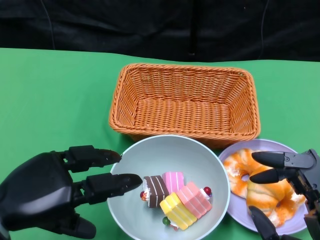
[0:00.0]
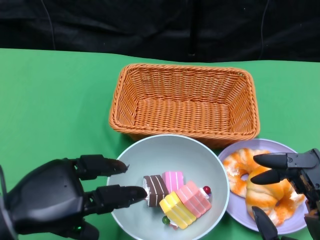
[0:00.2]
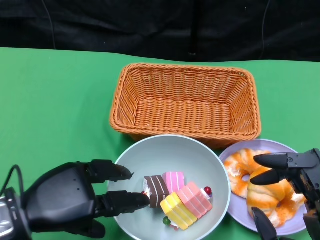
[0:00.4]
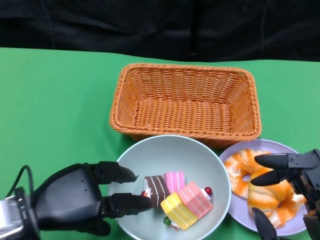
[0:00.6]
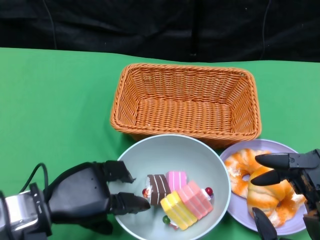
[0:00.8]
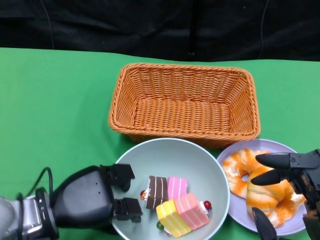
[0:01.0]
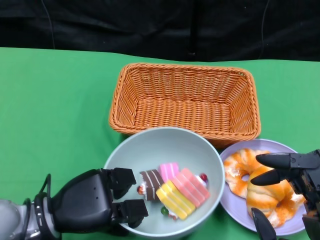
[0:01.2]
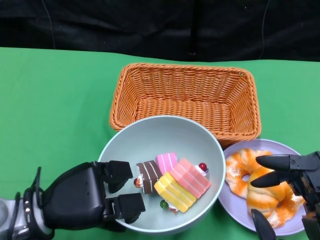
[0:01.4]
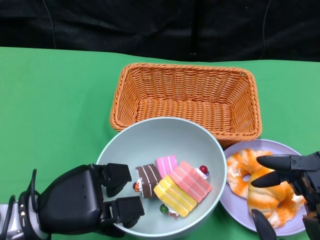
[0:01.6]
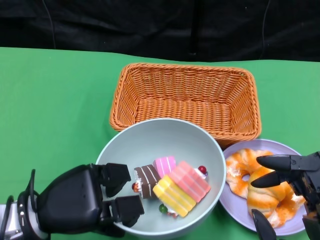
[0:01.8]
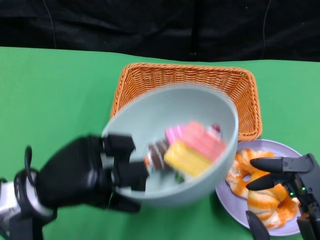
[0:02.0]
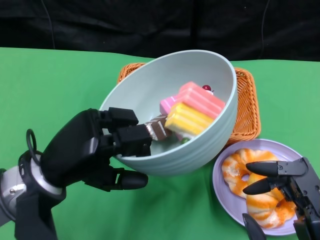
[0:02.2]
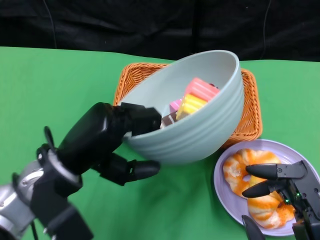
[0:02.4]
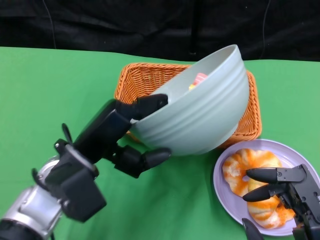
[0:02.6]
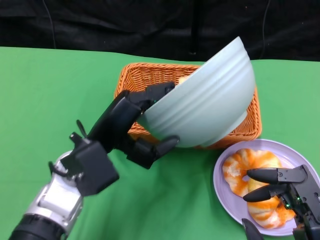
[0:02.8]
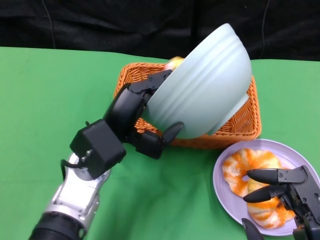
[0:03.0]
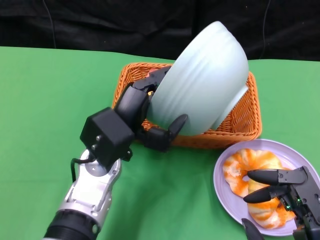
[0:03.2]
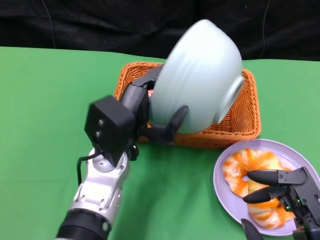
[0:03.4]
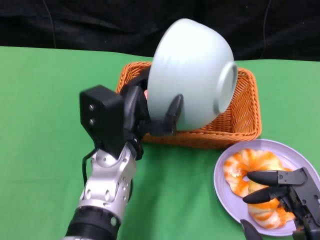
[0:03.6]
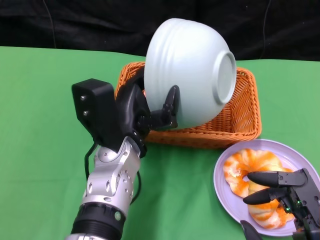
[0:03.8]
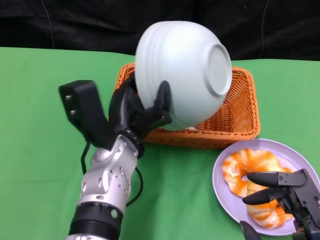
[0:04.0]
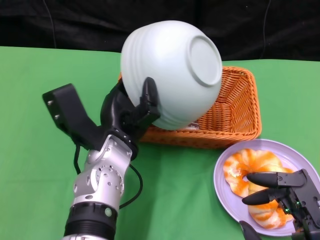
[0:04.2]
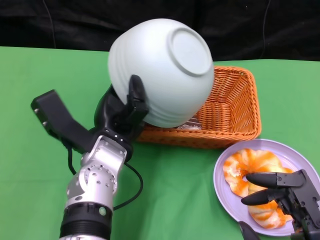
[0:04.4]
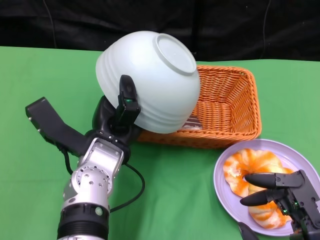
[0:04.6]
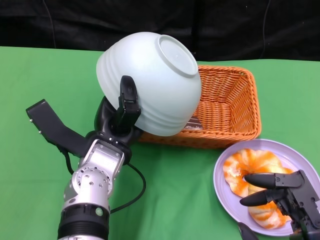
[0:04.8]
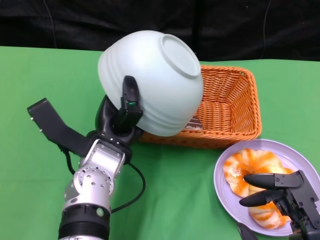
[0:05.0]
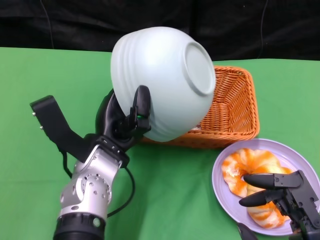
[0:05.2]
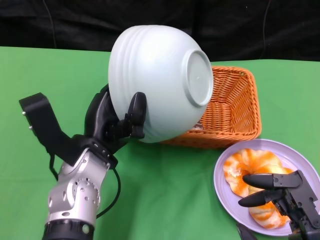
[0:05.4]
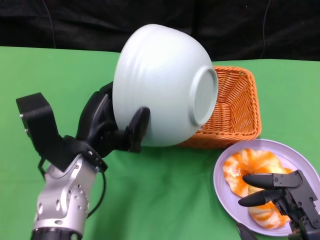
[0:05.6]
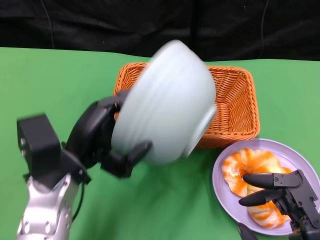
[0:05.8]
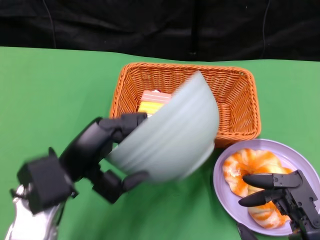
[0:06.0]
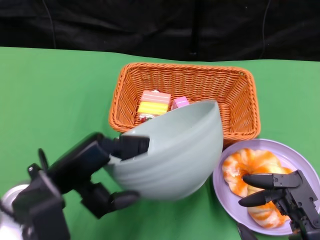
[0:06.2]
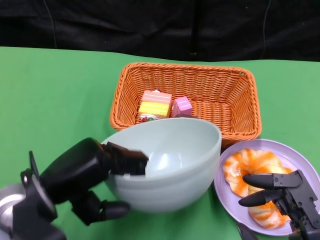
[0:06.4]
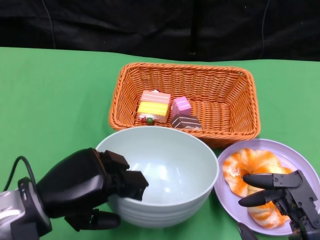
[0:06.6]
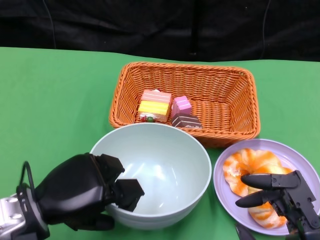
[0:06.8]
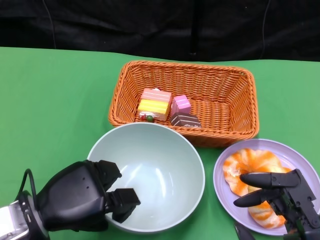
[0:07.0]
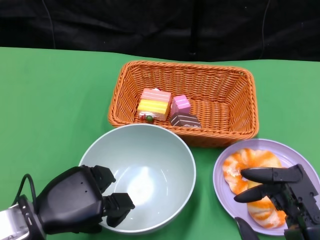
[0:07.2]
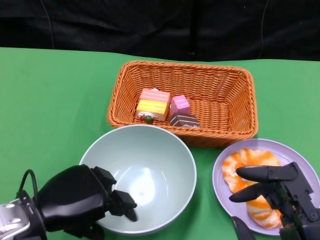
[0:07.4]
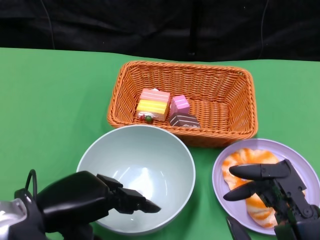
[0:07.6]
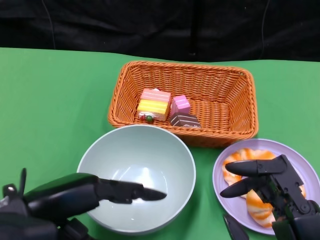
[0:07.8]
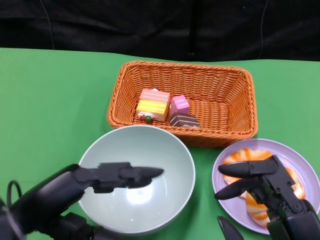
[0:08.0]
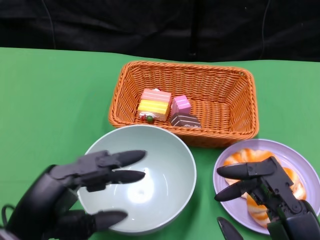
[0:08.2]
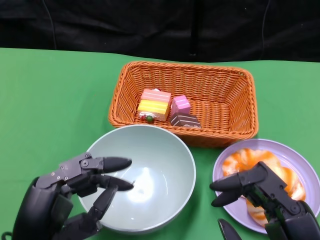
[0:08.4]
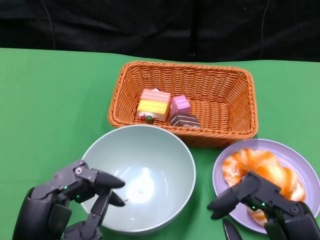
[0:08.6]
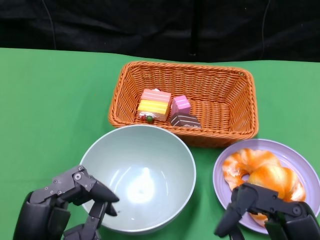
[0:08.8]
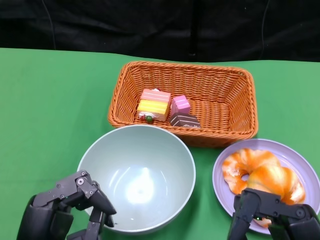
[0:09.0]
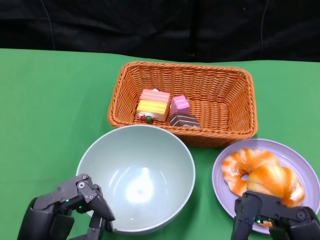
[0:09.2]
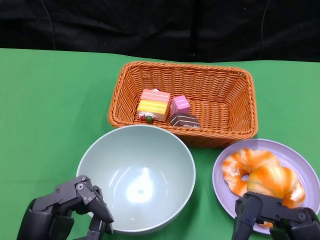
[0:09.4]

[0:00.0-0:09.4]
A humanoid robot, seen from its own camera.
Step, 0:01.2 to 0:05.2: Pour the cake into the basket with the left gripper.
Step, 0:05.4 to 0:07.6: Place the bowl on the table with the left gripper.
0:00.0 to 0:01.6: The left hand goes roughly 5 cm downward.
0:01.6 to 0:03.2: The left hand is displaced to the right, forward and upward by approximately 15 cm.
0:04.8 to 0:06.2: The left hand goes roughly 10 cm to the left and backward.
0:06.2 to 0:07.8: The left hand moves some 5 cm.
0:07.8 to 0:09.4: The left hand travels downward and backward by approximately 10 cm.

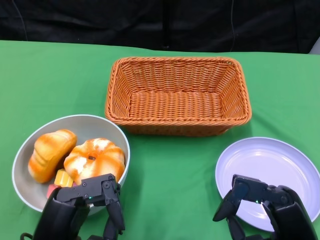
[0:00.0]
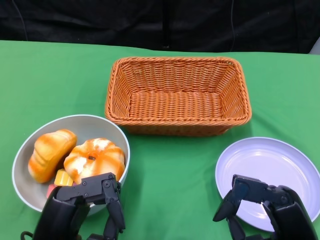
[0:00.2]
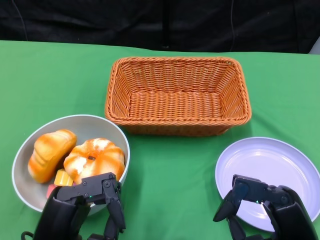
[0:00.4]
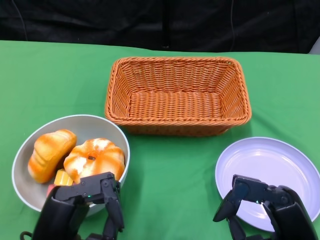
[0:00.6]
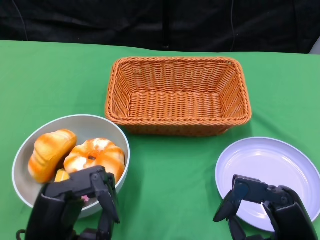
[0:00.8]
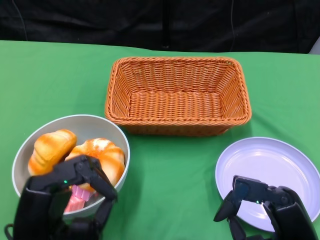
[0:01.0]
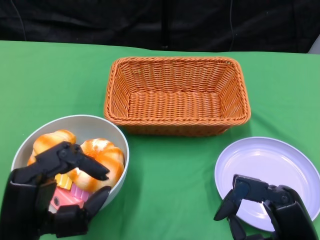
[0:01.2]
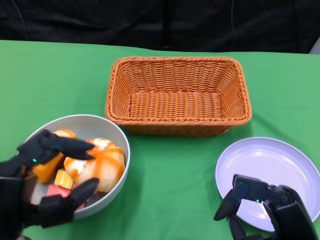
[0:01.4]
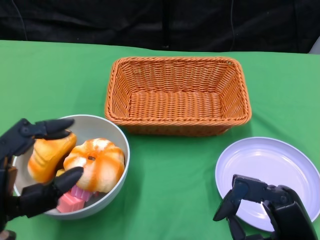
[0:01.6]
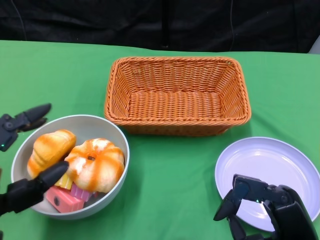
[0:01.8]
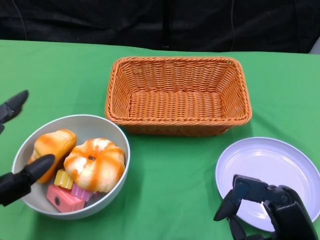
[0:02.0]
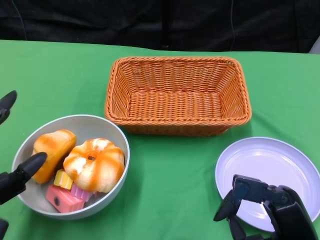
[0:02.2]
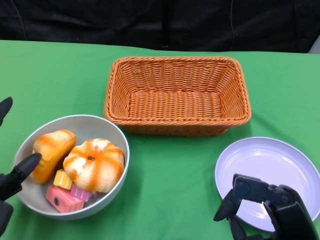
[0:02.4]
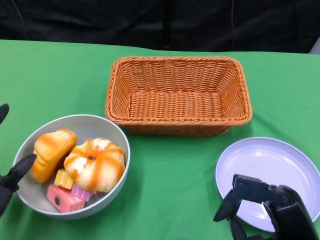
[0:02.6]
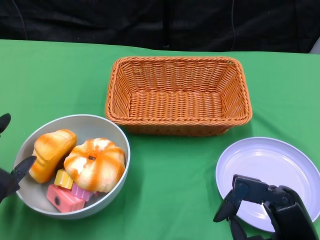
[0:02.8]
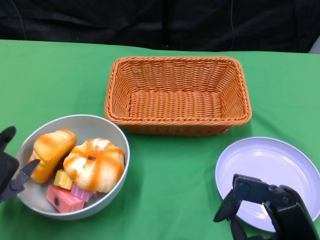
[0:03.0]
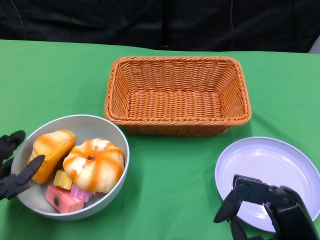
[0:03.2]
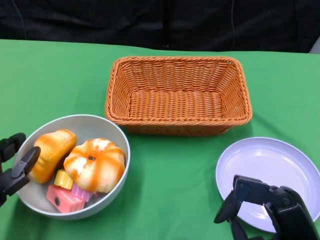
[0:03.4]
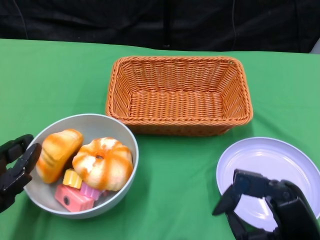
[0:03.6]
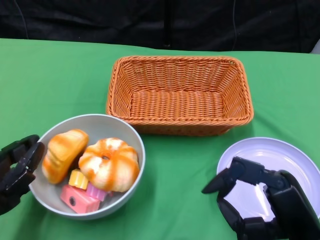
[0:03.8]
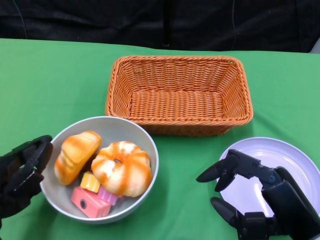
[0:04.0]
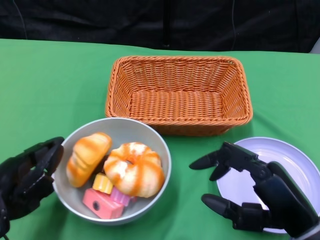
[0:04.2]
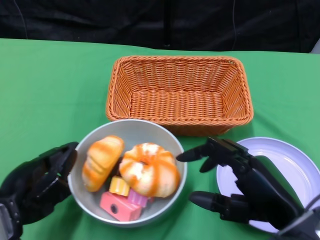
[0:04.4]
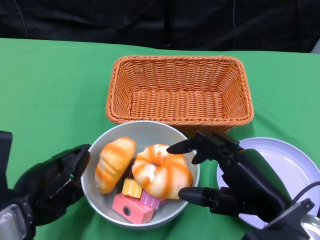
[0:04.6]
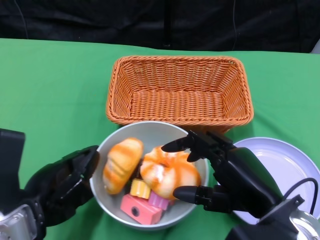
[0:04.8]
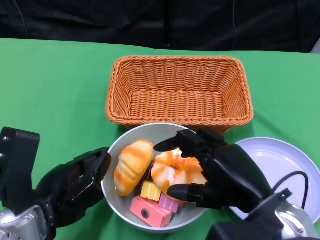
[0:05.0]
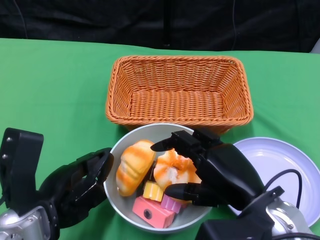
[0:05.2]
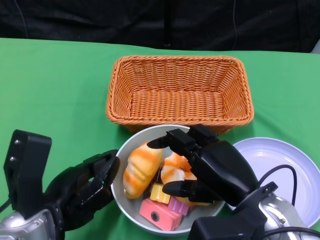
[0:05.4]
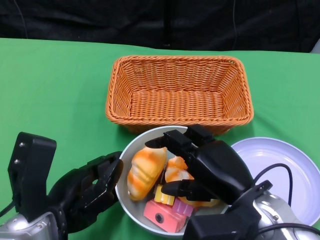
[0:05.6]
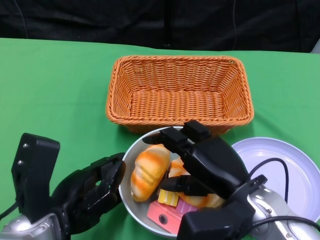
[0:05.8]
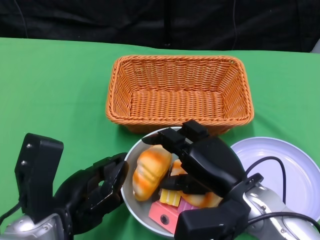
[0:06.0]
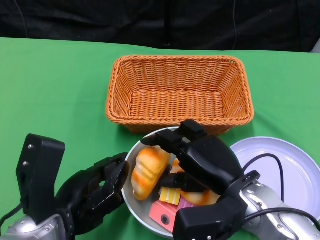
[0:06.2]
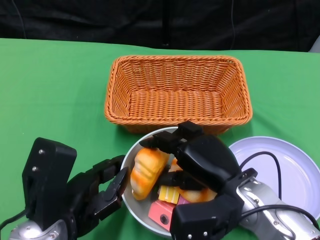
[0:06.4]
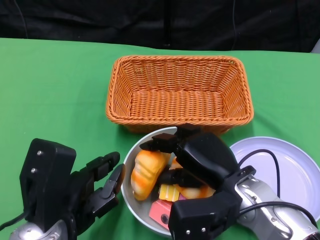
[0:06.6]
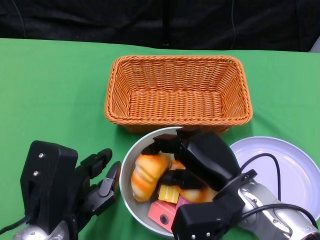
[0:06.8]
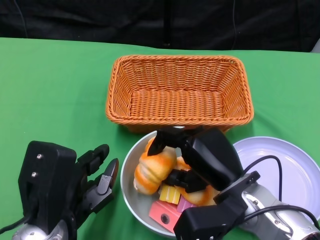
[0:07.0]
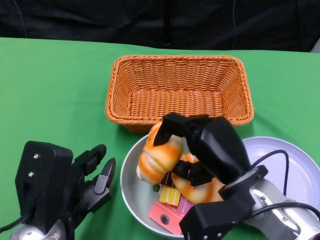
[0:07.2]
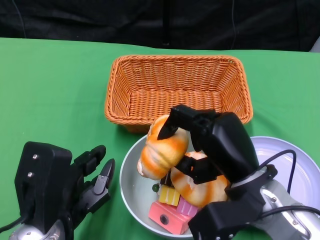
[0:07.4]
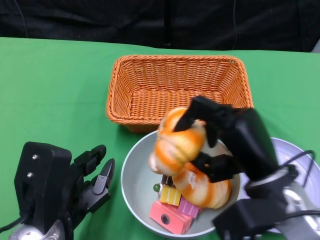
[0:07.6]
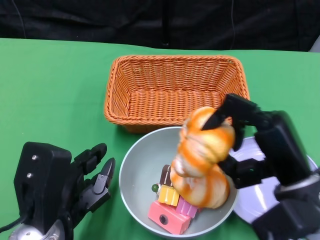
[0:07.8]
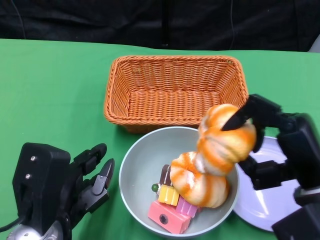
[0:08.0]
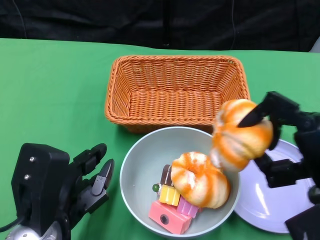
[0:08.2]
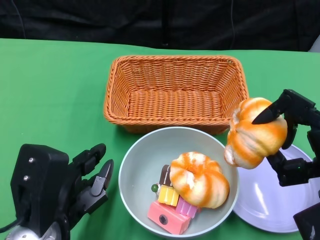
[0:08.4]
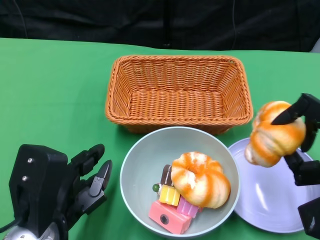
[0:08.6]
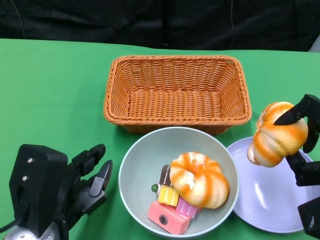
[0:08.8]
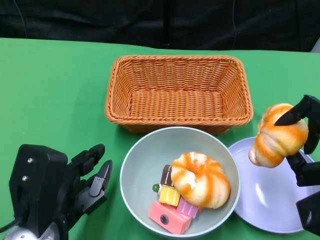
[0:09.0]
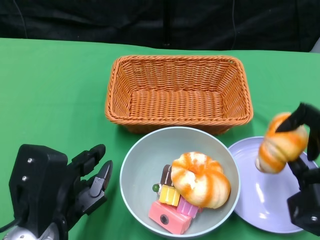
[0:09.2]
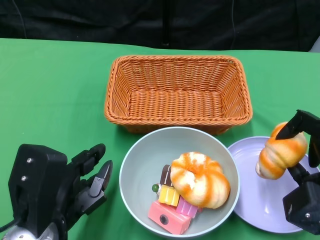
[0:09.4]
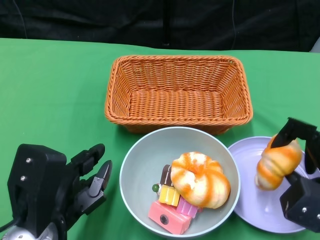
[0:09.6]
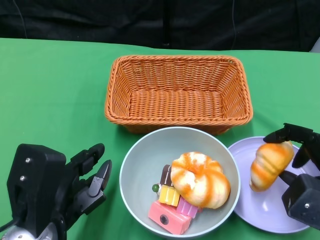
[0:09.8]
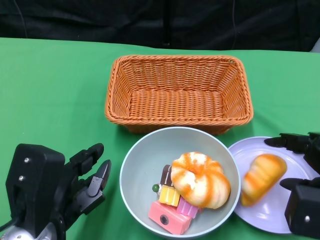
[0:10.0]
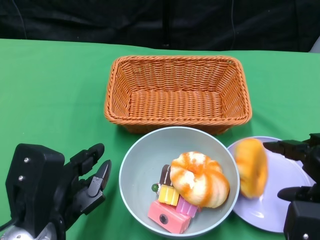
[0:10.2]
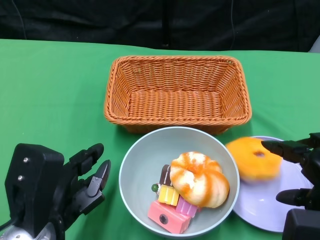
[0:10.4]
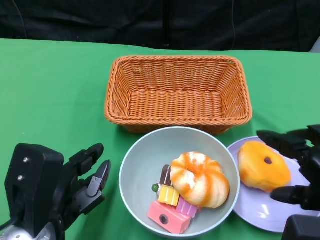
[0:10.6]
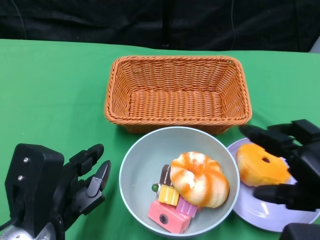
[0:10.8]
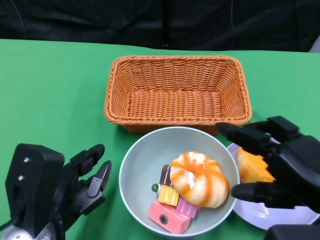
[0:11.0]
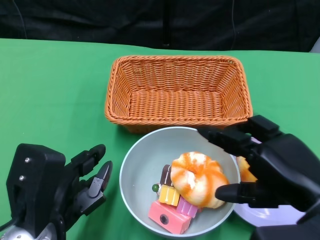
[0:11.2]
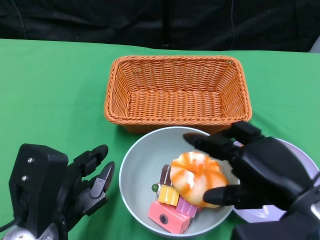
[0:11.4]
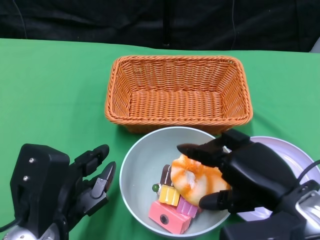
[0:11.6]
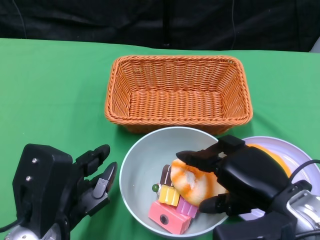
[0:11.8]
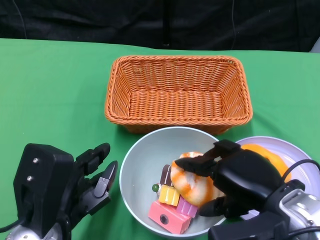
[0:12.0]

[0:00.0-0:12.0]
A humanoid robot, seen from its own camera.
Step, 0:00.0 to 0:05.8: Push the bowl to the center of the table using the left gripper.
Step, 0:06.0 to 0:10.4: Pick up the bread with the right gripper and place it on the plate.
0:01.6 to 0:03.0: The left hand ends up about 5 cm from where it was.
0:03.0 to 0:04.4: The right hand shifts by roughly 5 cm.
0:04.4 to 0:06.0: The right hand goes approximately 10 cm to the left and forward. The left hand moves to the right, roughly 5 cm.
0:07.6 to 0:09.0: The right hand moves to the right, roughly 10 cm.
0:09.0 to 0:10.4: The right hand ends up some 5 cm from where it was.
0:10.4 to 0:12.0: The right hand shifts roughly 10 cm to the left.

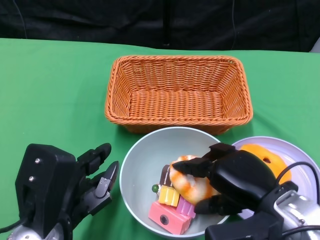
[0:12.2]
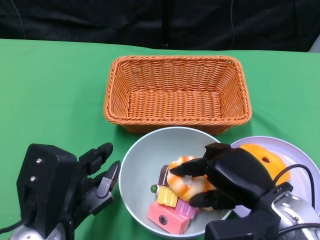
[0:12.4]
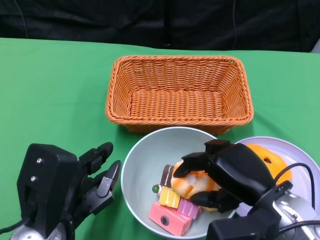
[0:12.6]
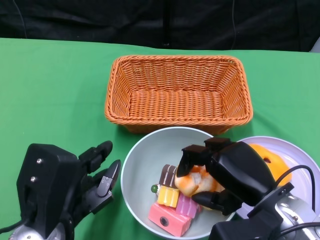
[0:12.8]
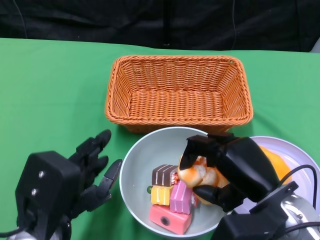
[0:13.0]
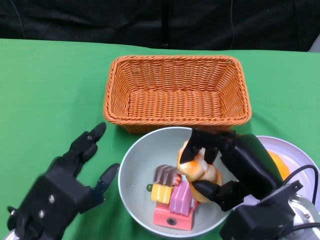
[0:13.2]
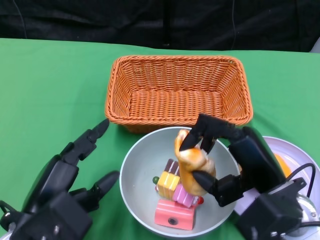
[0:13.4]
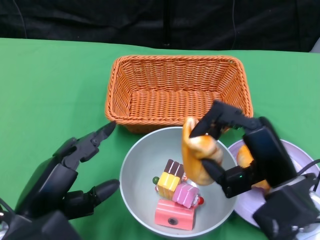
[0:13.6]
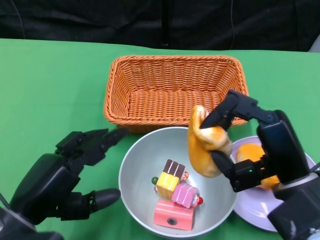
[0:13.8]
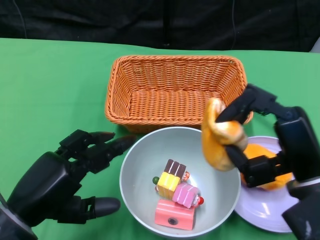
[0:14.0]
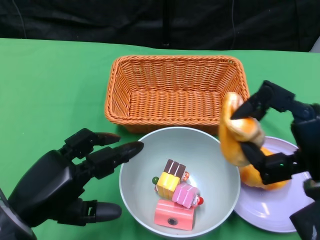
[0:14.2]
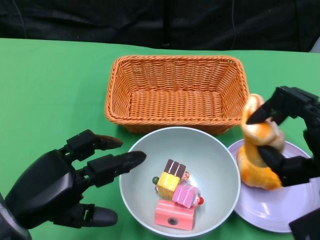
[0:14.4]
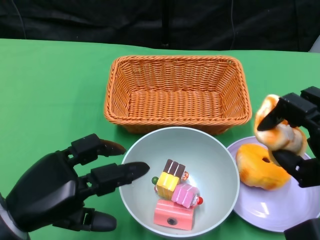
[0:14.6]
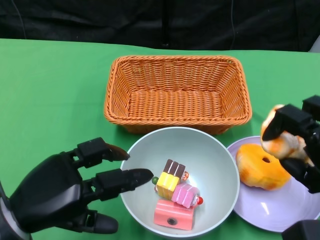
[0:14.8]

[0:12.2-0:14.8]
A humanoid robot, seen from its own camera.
0:13.4 to 0:14.8: The right hand shifts some 10 cm to the right.
